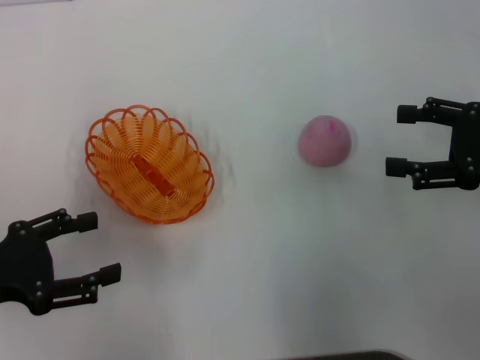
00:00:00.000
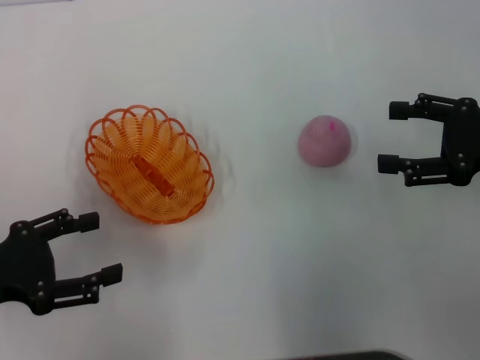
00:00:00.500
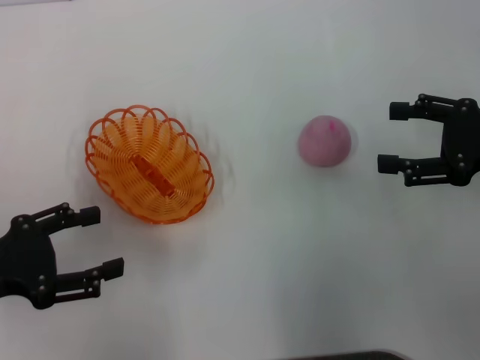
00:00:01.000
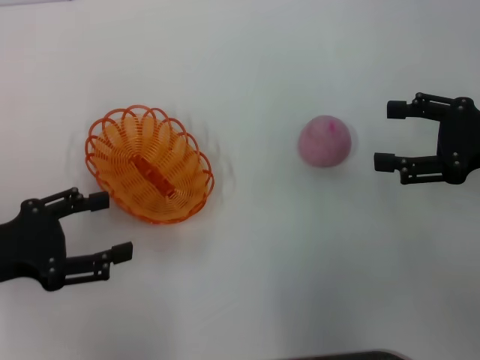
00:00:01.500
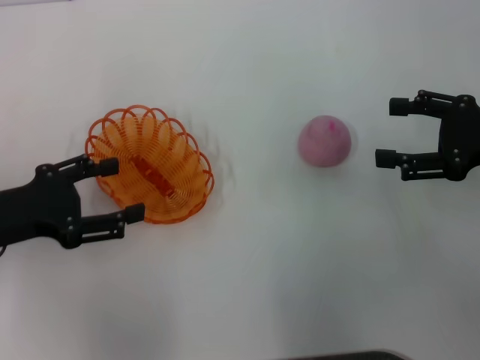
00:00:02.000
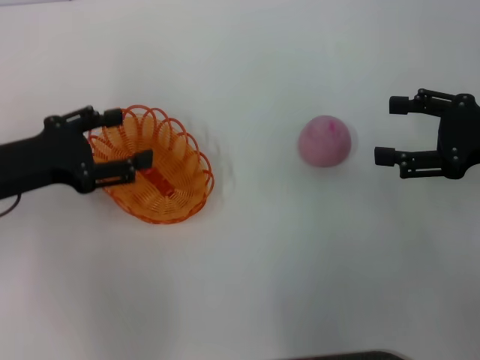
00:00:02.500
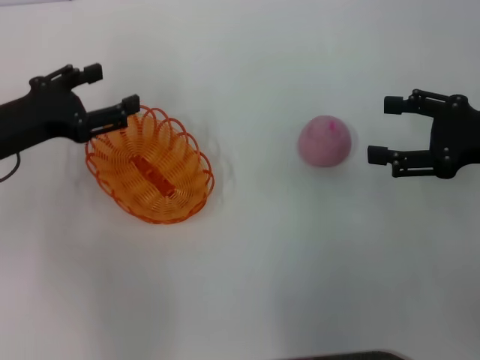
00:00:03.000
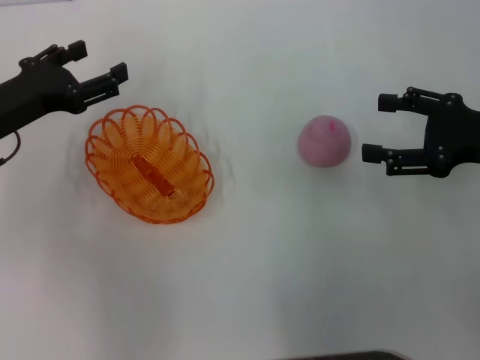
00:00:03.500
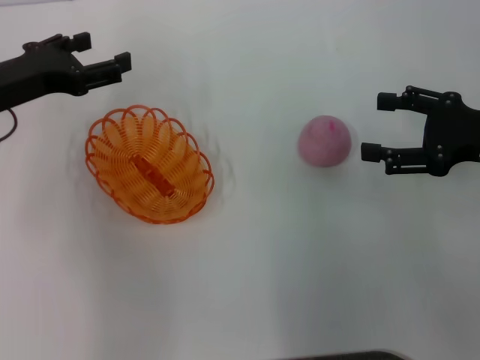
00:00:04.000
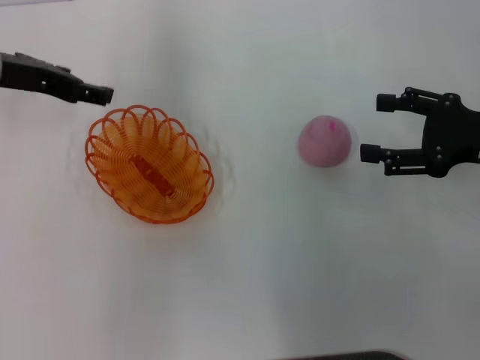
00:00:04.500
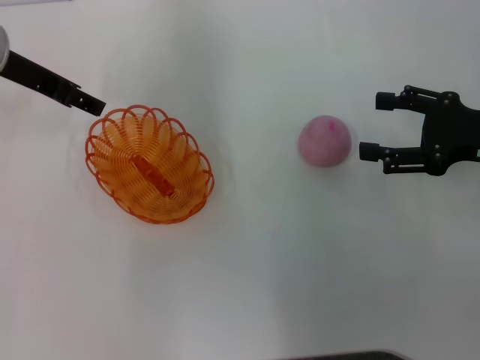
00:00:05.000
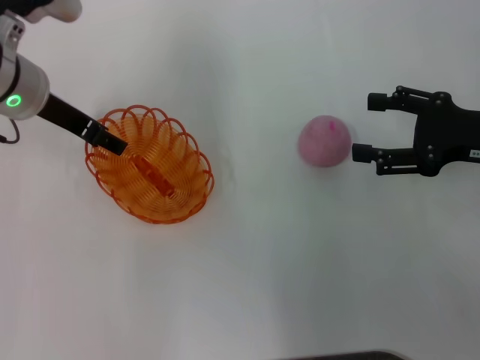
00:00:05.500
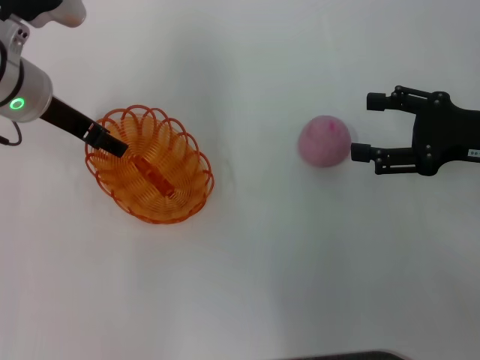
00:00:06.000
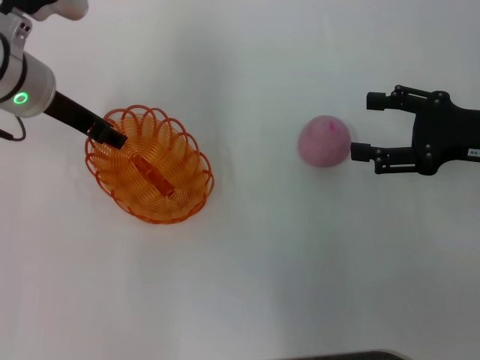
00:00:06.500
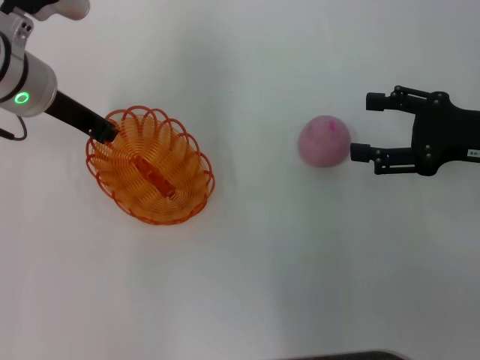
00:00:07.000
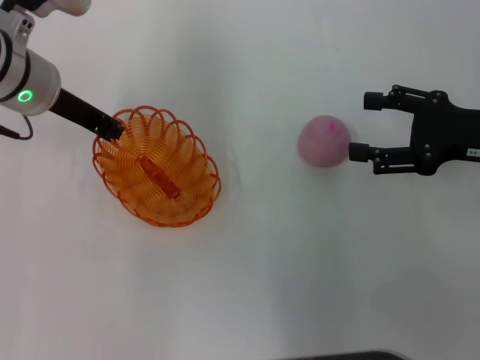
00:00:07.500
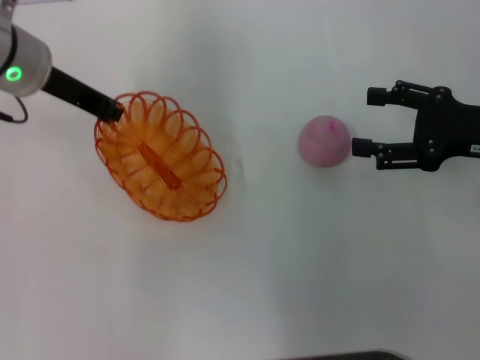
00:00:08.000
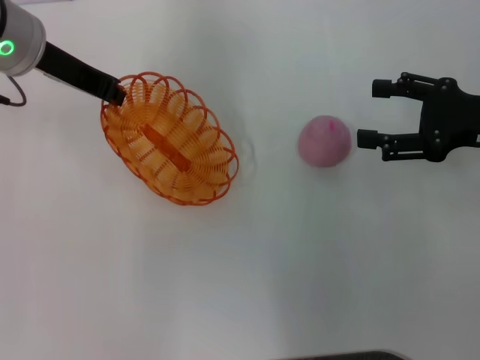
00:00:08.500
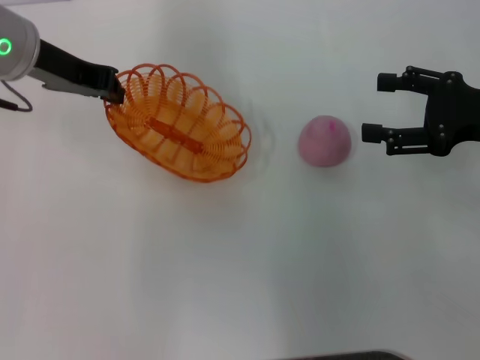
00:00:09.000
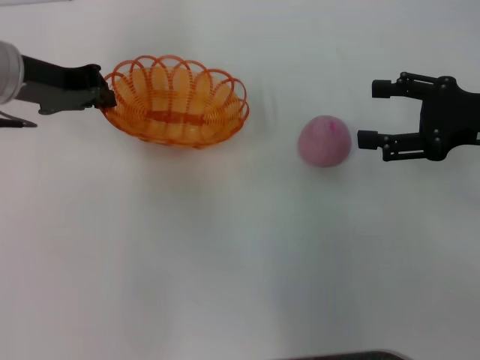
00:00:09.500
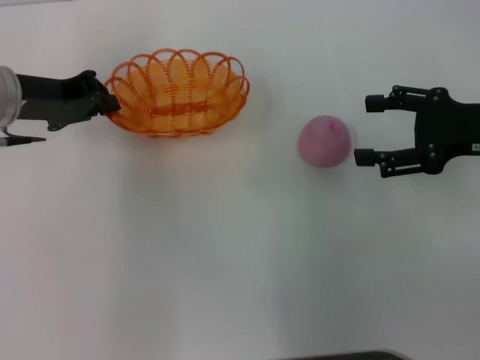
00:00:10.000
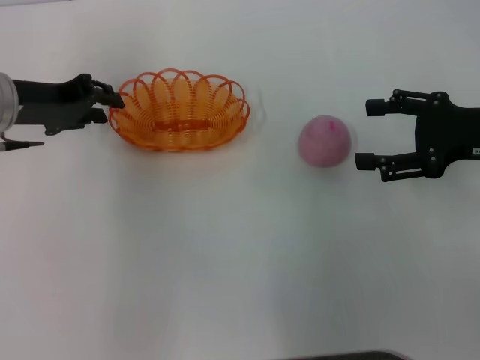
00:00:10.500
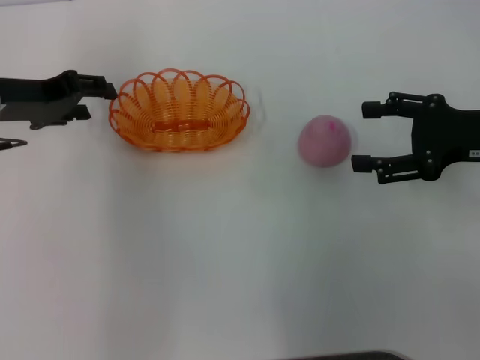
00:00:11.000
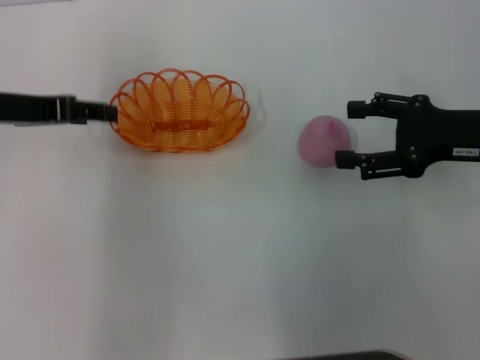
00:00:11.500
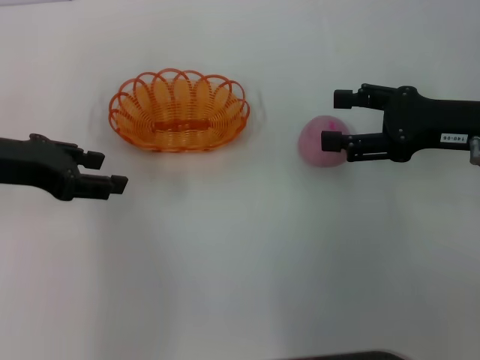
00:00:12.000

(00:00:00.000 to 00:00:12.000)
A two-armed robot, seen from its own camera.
Step, 00:00:00.000 - 00:00:08.000: Pick up the basket with the left gripper.
00:00:00.000 - 00:00:02.000: The left gripper shifts by some 5 cm.
00:00:02.000 - 00:00:04.000: The left gripper shifts approximately 10 cm forward.
00:00:04.000 - 00:00:06.000: The left gripper is displaced to the right by roughly 5 cm.
00:00:06.000 - 00:00:08.000: The left gripper closes.
00:00:08.000 - 00:00:10.000: The left gripper ends up some 5 cm from where it was.
00:00:10.000 - 00:00:12.000: The left gripper travels backward by some 5 cm, and opens up.

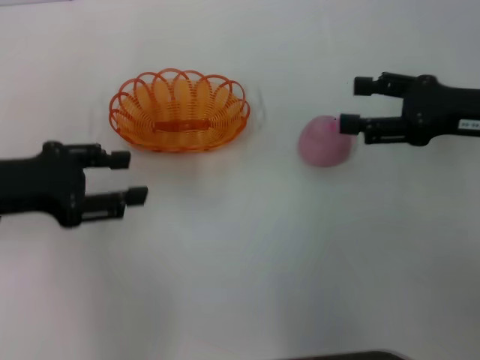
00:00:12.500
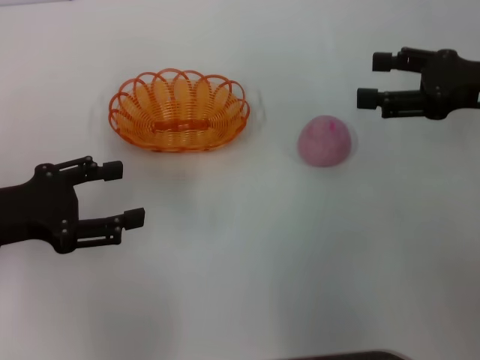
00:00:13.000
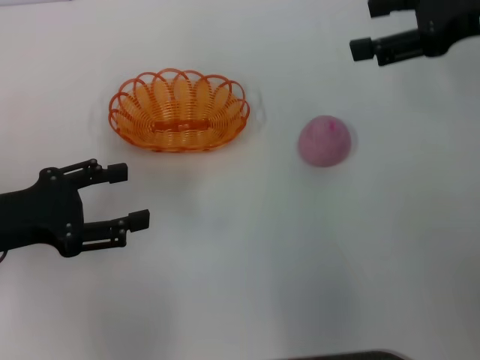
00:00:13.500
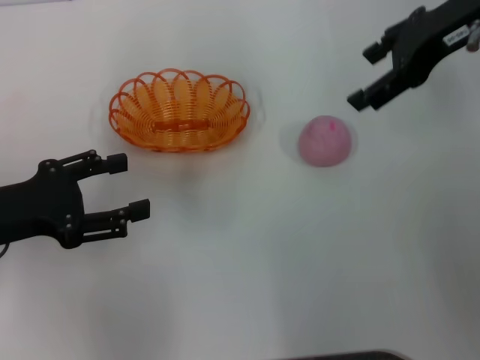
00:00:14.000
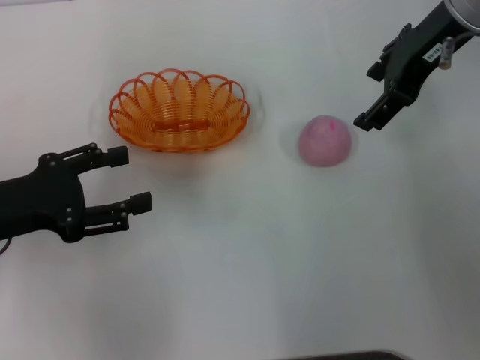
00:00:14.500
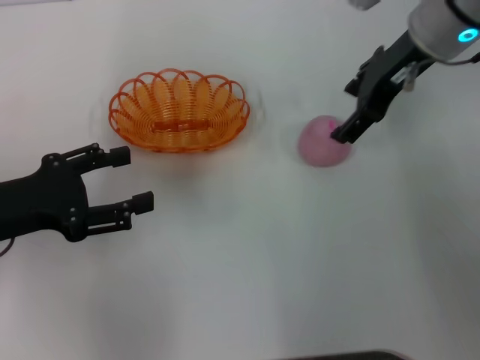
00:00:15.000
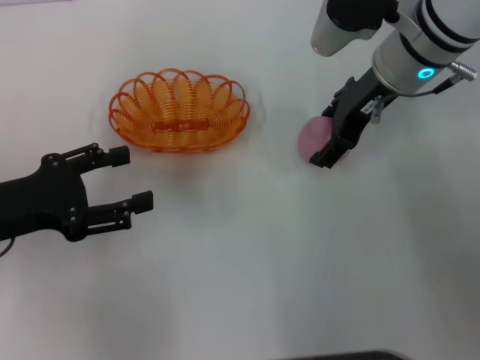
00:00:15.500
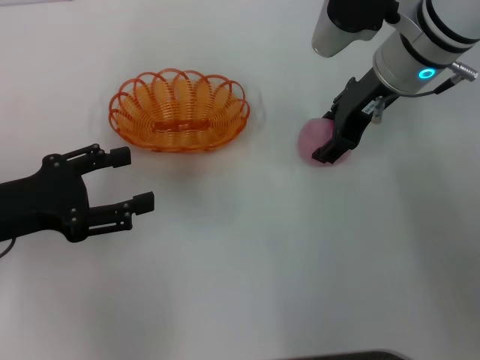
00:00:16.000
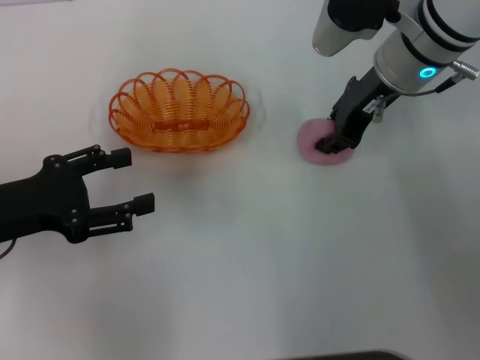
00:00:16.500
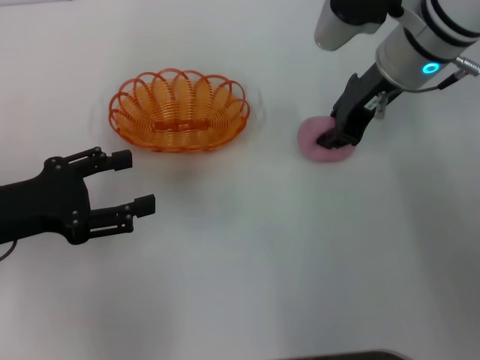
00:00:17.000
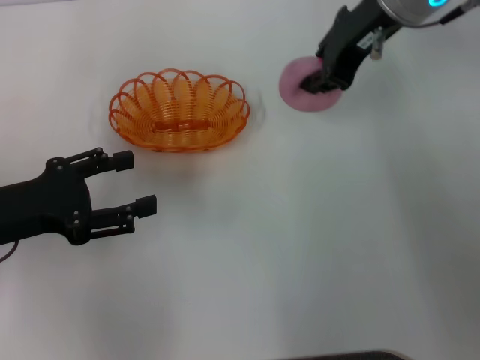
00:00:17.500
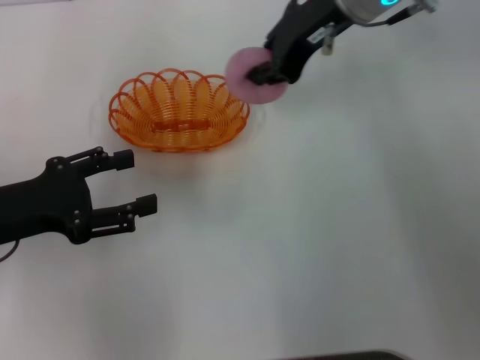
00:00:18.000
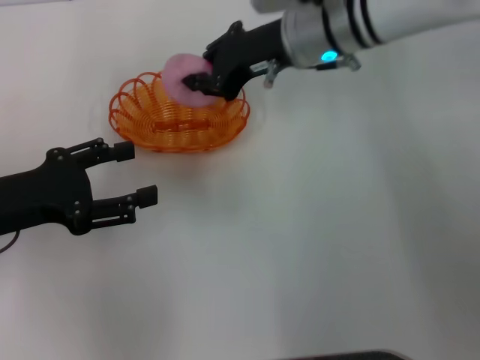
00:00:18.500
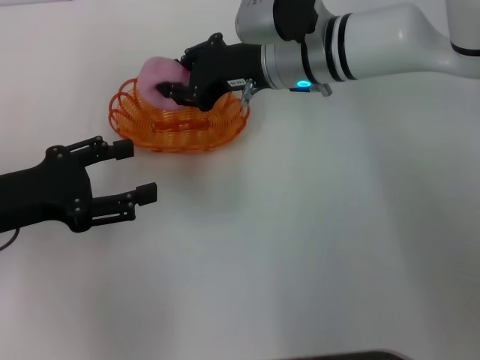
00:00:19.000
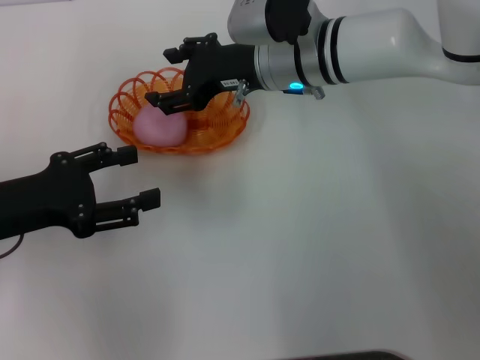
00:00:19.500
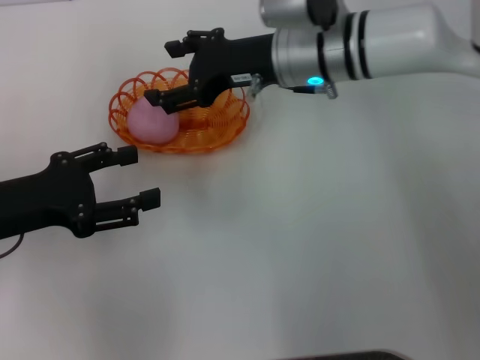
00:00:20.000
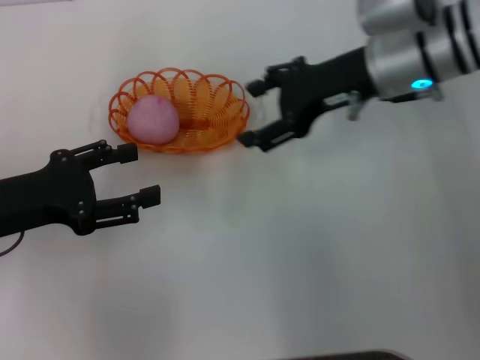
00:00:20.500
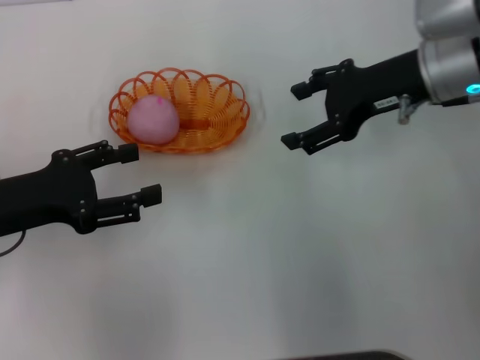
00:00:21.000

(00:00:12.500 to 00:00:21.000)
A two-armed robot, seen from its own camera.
Step, 00:00:13.000 - 00:00:17.500: Pick up the peach with the right gripper.
Step, 00:00:18.000 - 00:00:20.500: Place the peach into the basket with the right gripper.
00:00:12.500 - 00:00:14.500: The right gripper moves upward, to the left and forward, approximately 15 cm.
00:00:14.500 - 00:00:16.500: The right gripper moves downward, roughly 10 cm, and closes.
00:00:16.500 - 00:00:19.000: The right gripper goes some 10 cm to the left, and reaches roughly 10 cm upward, then returns.
00:00:19.000 - 00:00:21.000: The right gripper heads to the right, covering approximately 15 cm, and opens its fingers.
